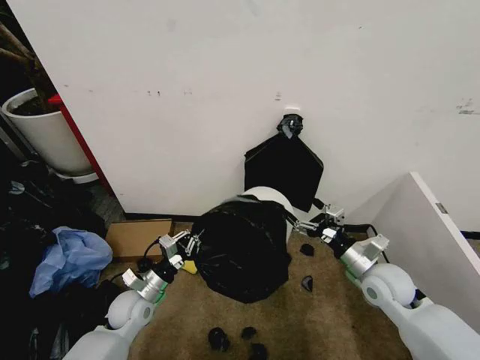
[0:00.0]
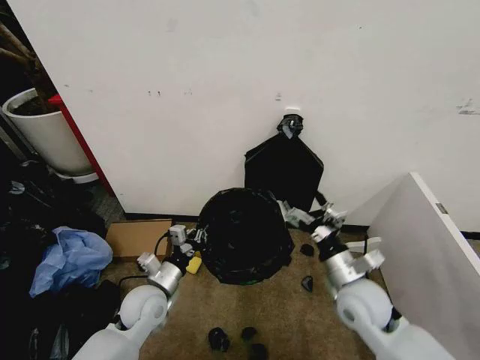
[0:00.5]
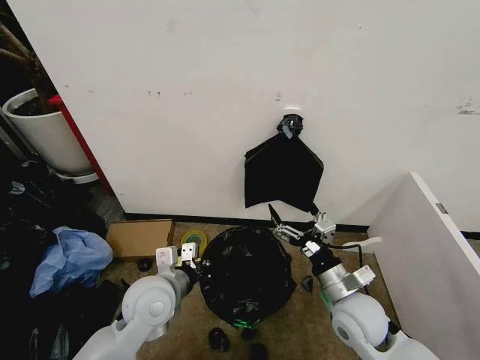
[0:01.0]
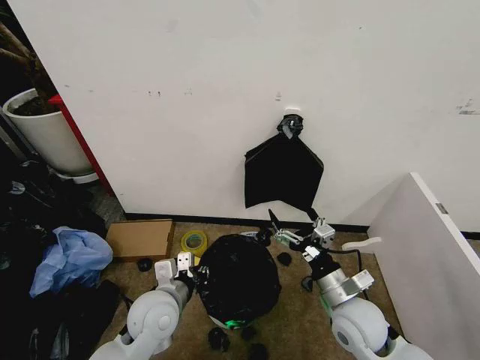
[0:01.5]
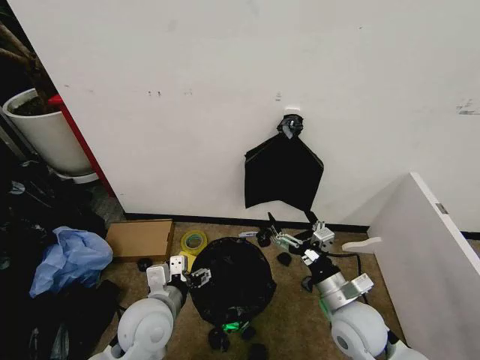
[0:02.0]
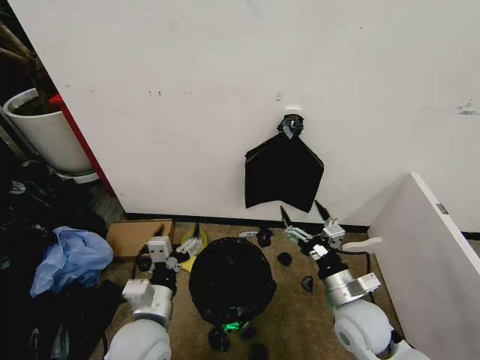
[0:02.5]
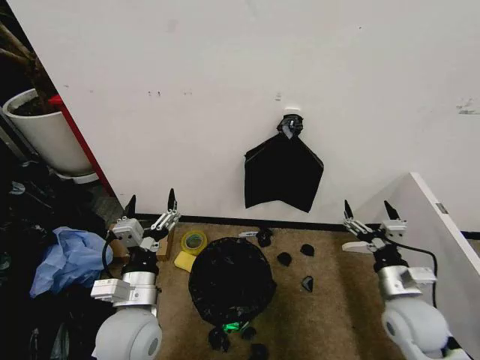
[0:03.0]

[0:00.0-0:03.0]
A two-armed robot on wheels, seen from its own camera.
Task of the whole recording: Place the garbage bag over the trash bin.
0:00.0 to 0:01.5: The left gripper goes approximately 15 cm upward and to the right. Meanwhile the right gripper heads to the left and backward, covering roughly 10 cm.
0:01.5 to 0:03.0: The left gripper moves backward, approximately 10 cm, and opens its fingers.

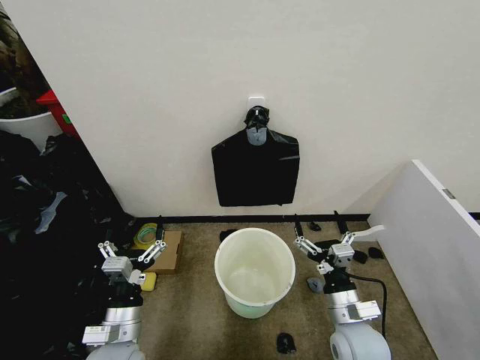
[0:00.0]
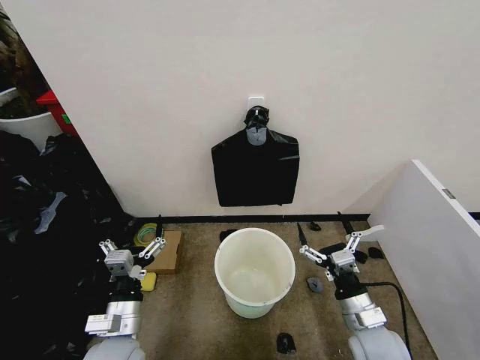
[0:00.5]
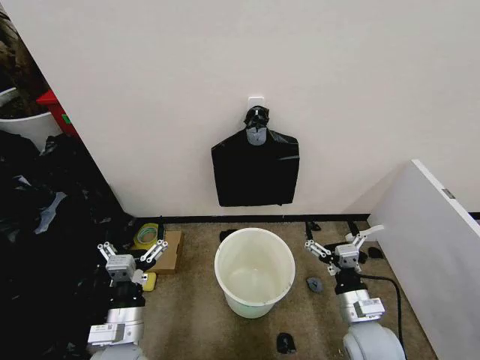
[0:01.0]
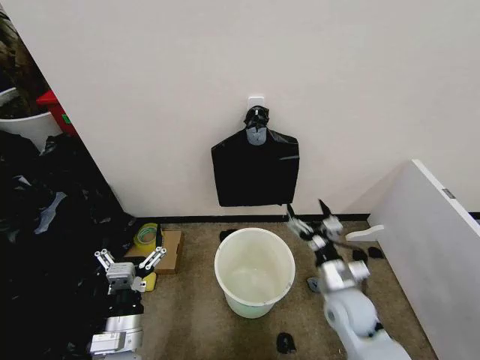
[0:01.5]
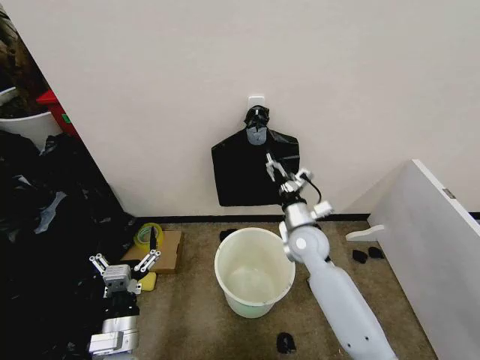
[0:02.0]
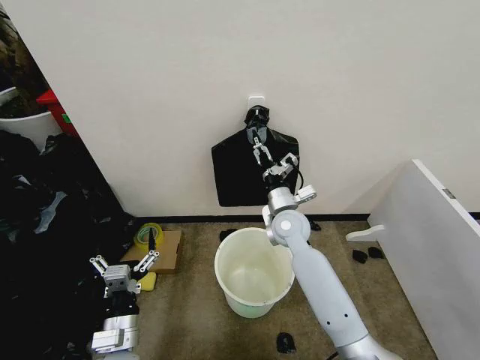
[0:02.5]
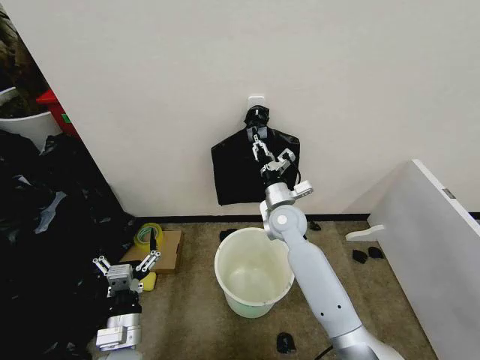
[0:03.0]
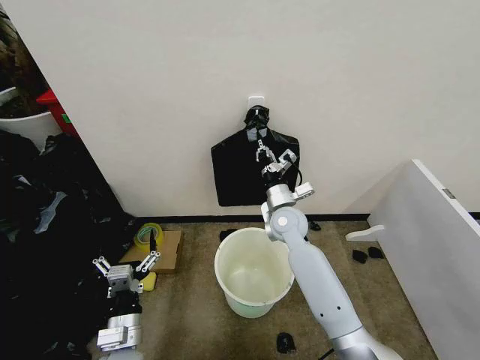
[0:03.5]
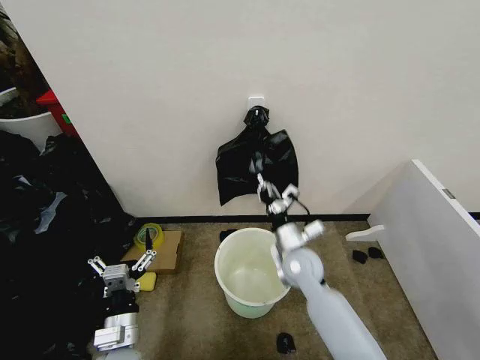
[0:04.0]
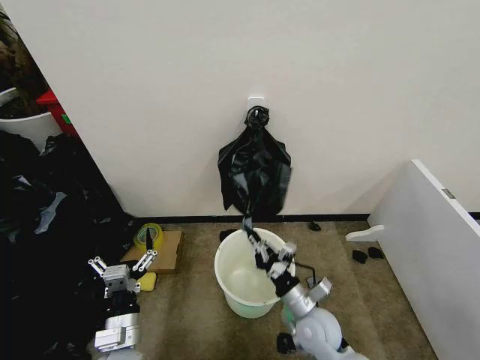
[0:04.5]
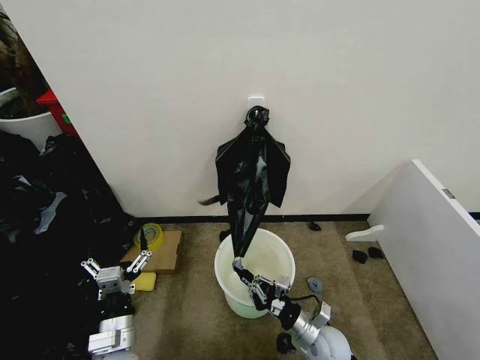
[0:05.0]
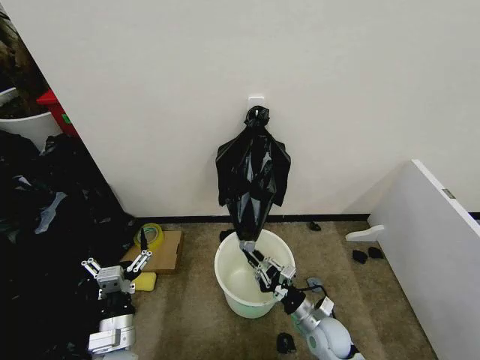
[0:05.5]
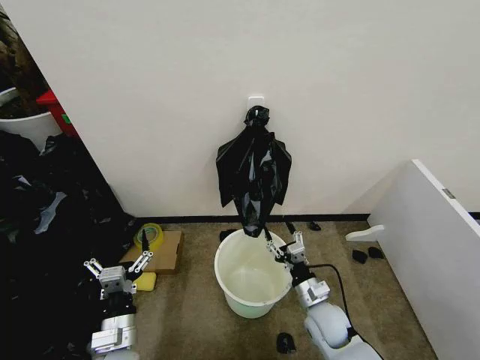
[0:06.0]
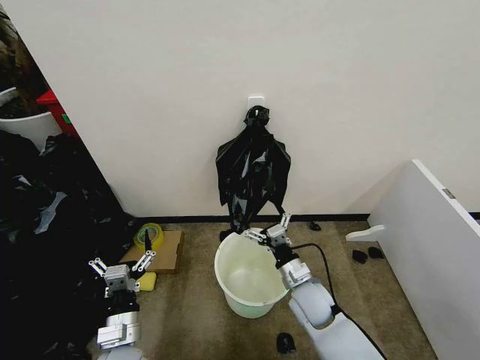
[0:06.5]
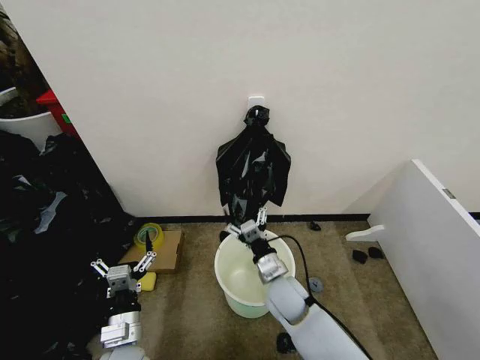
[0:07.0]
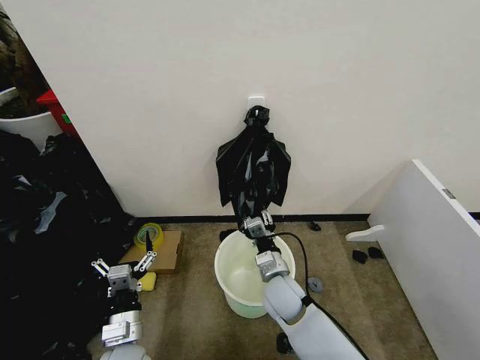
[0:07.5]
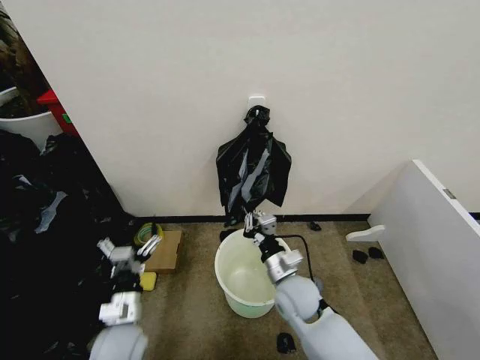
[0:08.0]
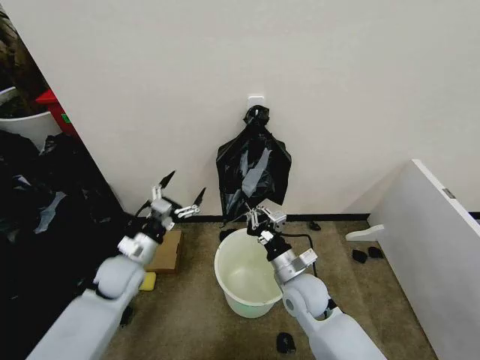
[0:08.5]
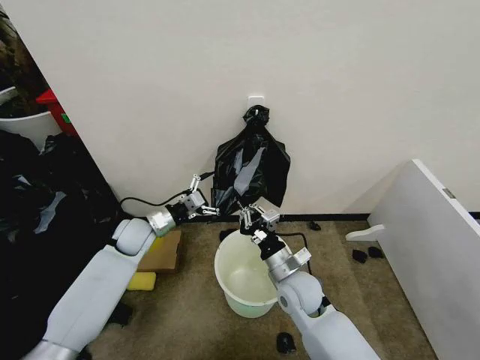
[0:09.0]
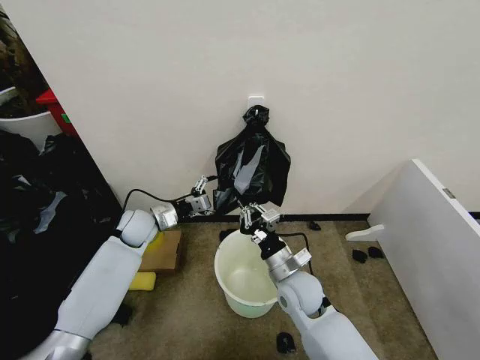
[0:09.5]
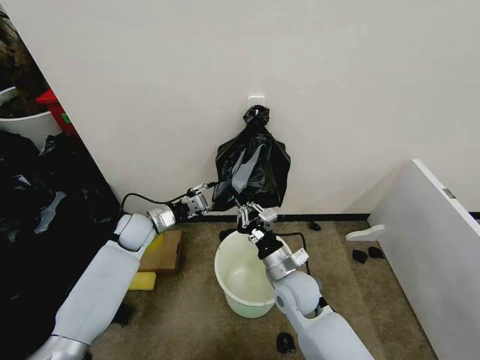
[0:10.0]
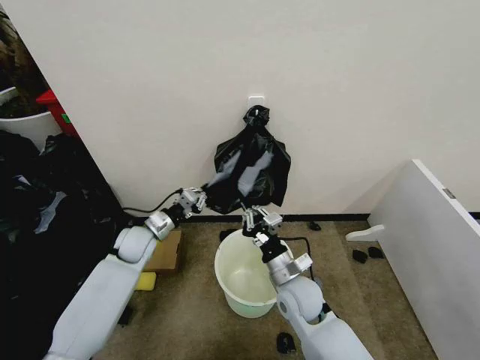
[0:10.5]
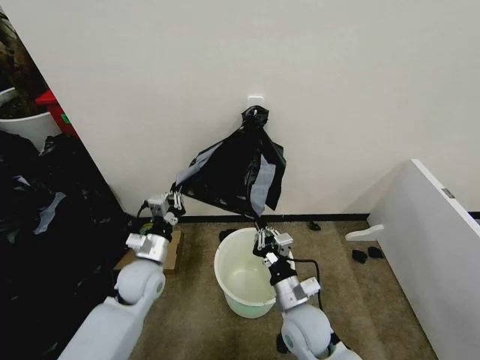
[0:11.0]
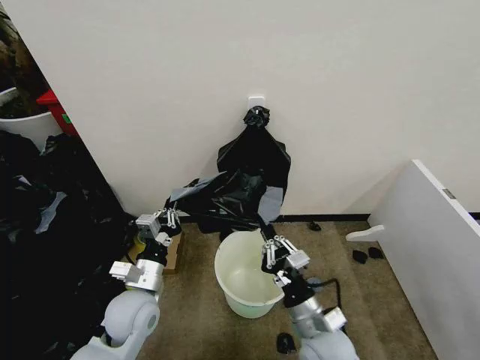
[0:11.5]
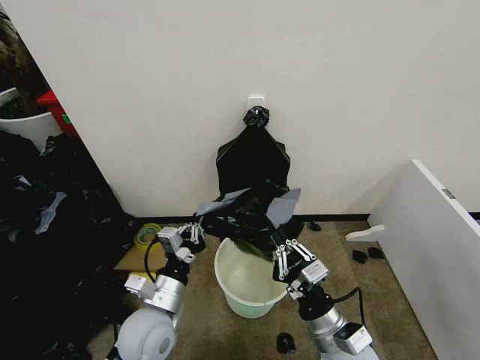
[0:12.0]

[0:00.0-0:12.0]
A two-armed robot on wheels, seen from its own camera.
Task of the whole recording: Place the garbage bag over the trash bin.
0:02.0 to 0:04.0: The right gripper ends up some 5 cm from where it was, and closes up.
0:04.0 to 0:06.0: The right gripper travels downward, backward and to the right by some 15 cm, and opens its fingers.
0:06.0 to 0:08.0: The right gripper heads to the left and upward, covering roughly 10 cm, and closes.
0:08.0 to 0:10.0: The left gripper moves forward, some 25 cm, and closes its fingers.
0:10.0 to 0:12.0: The right gripper goes approximately 15 cm backward and to the right; the left gripper goes about 25 cm backward and to the right, and closes up.

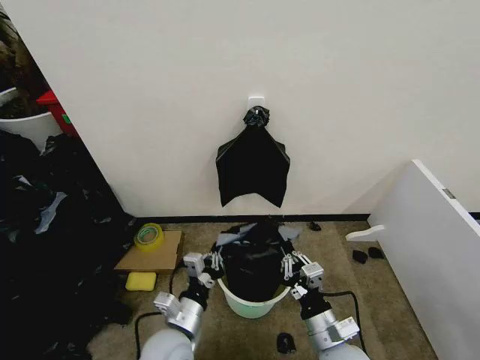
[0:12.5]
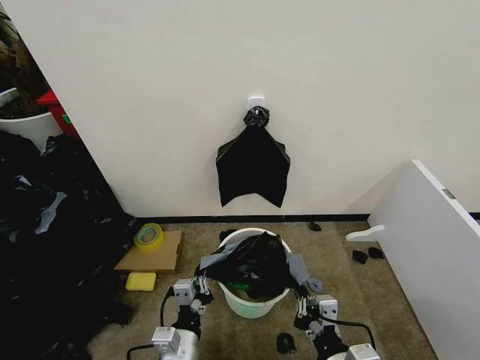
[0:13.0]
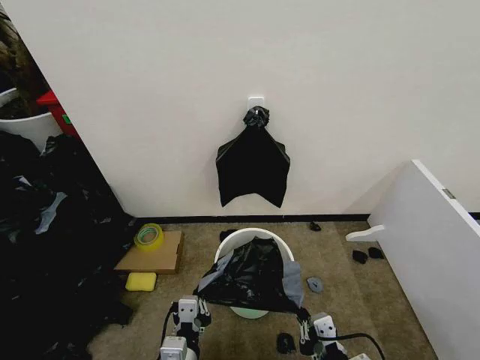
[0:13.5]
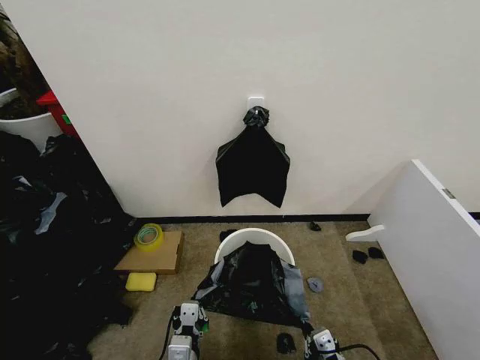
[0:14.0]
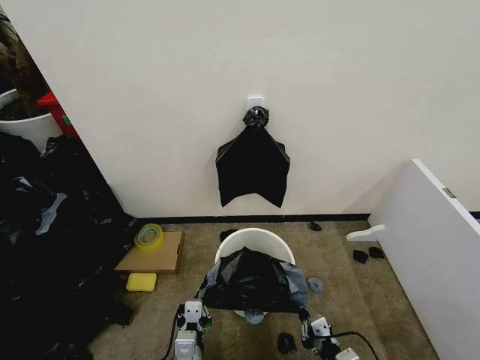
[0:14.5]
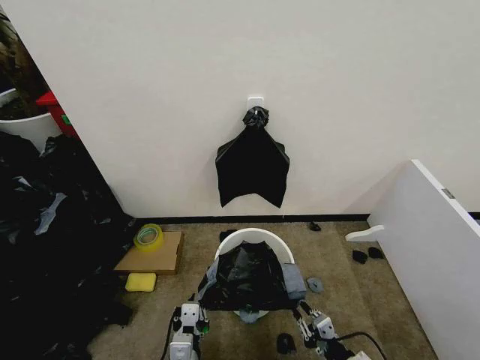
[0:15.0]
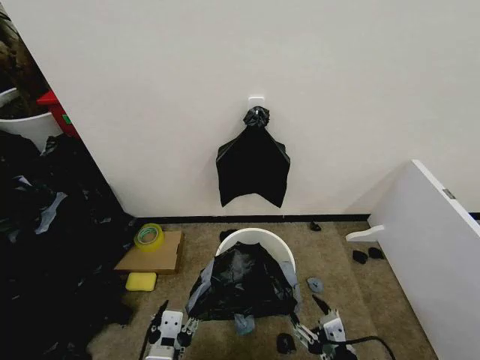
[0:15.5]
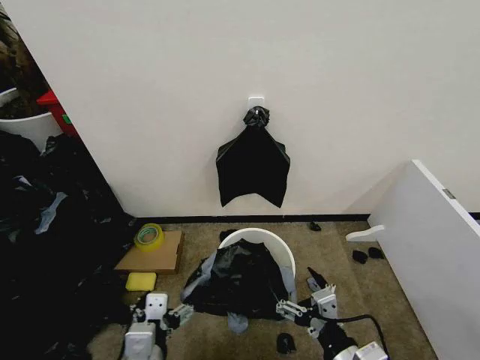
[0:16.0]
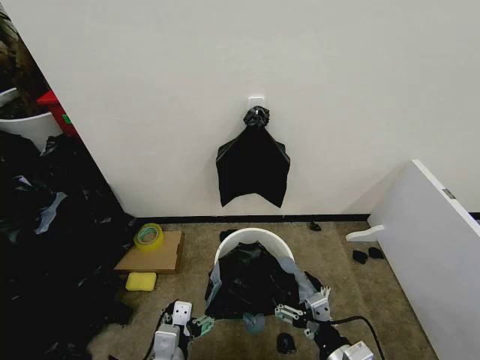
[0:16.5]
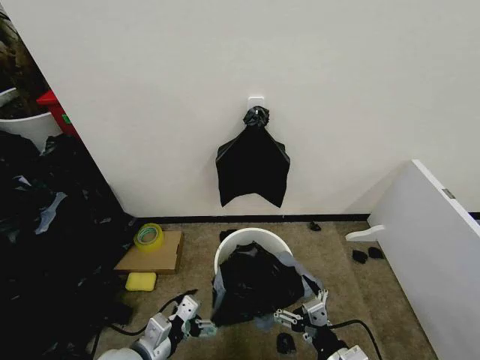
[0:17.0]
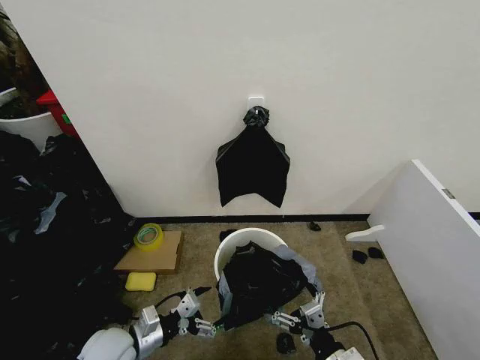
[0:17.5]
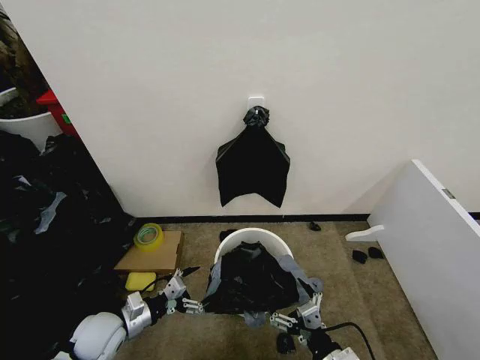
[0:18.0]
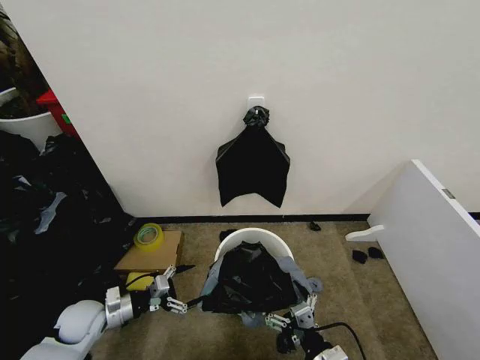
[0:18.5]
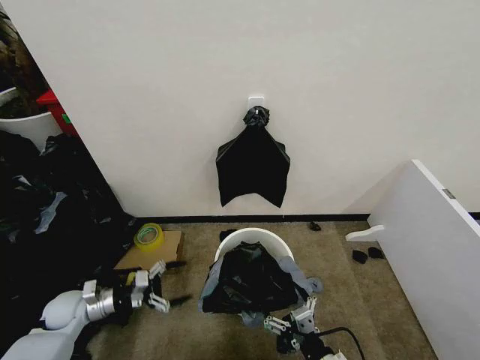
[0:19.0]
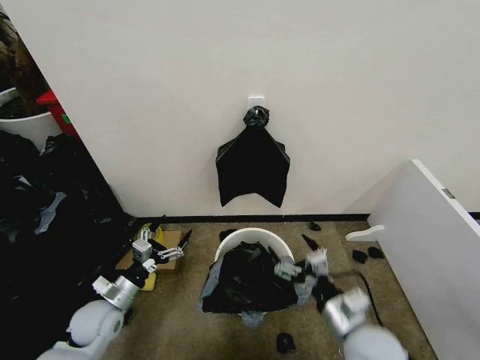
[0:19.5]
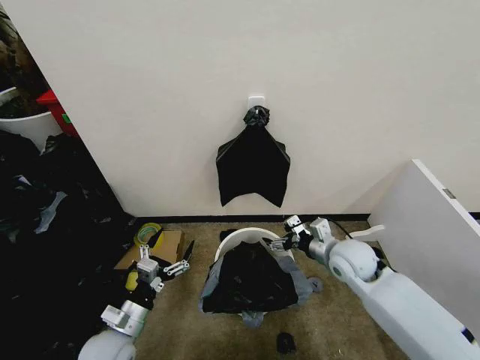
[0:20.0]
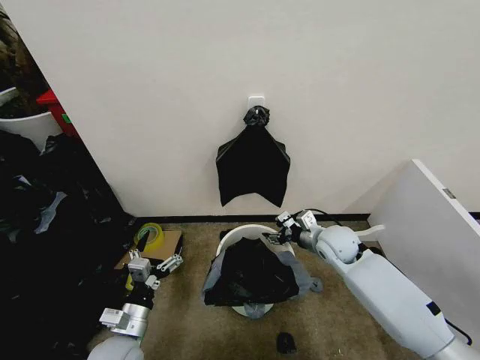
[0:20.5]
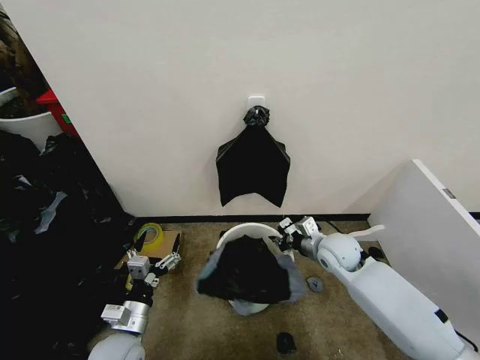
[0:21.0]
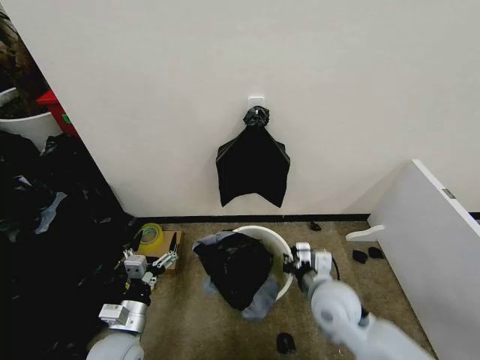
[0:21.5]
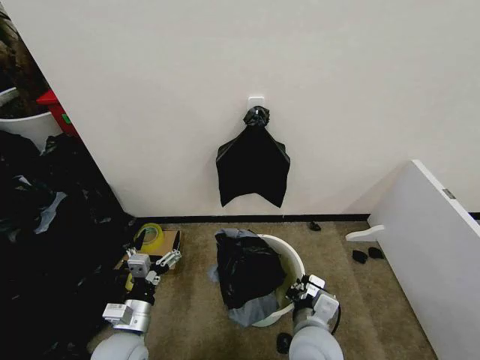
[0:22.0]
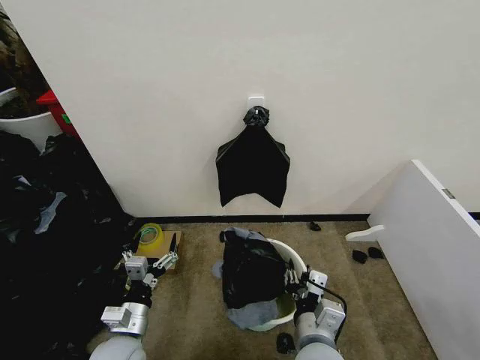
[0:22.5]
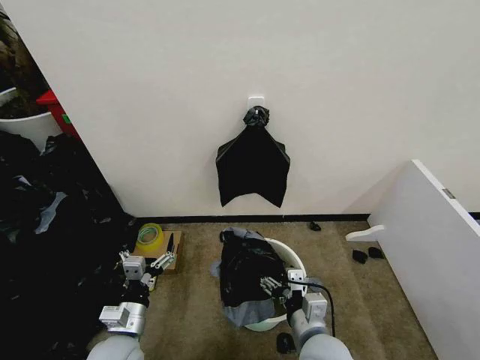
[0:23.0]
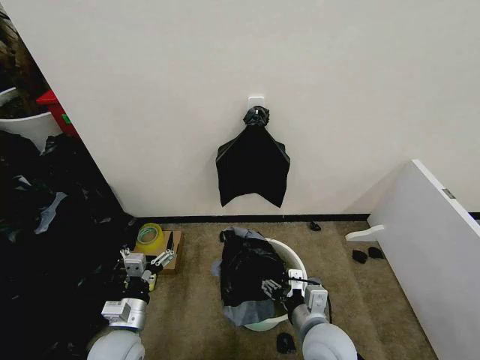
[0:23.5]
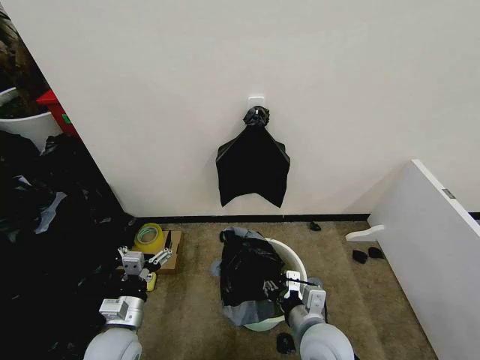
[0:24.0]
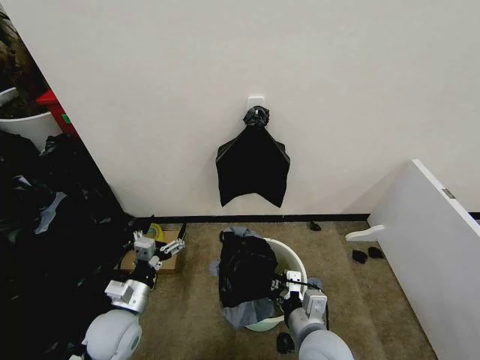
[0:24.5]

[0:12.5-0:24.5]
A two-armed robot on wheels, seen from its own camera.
Task of the whole recording: Place the garbage bag over the trash bin.
0:12.5 to 0:14.5: The left gripper goes approximately 10 cm backward, downward and to the right, while the right gripper heads downward, to the right and backward, covering about 15 cm.
0:14.5 to 0:16.5: The left gripper heads upward and to the left, covering roughly 10 cm, and opens its fingers; the right gripper shifts about 10 cm upward, and opens up.
0:16.5 to 0:18.5: The left gripper heads to the left and forward, covering some 25 cm, while the right gripper moves about 5 cm.
0:18.5 to 0:20.5: The right gripper moves forward, approximately 30 cm. The left gripper goes some 15 cm to the right and backward.
0:20.5 to 0:22.5: The right gripper is displaced backward and to the left by about 30 cm, and closes, then reopens.
0:22.5 to 0:24.5: The left gripper shifts by approximately 5 cm. The right gripper closes.
